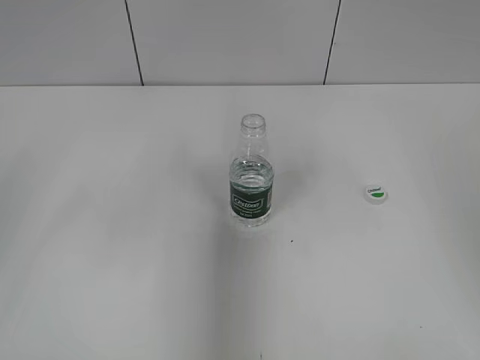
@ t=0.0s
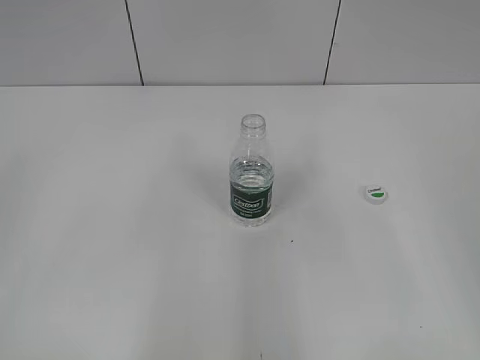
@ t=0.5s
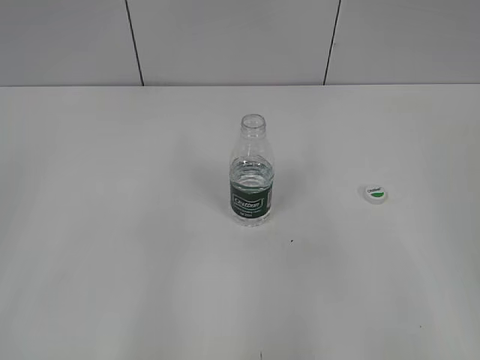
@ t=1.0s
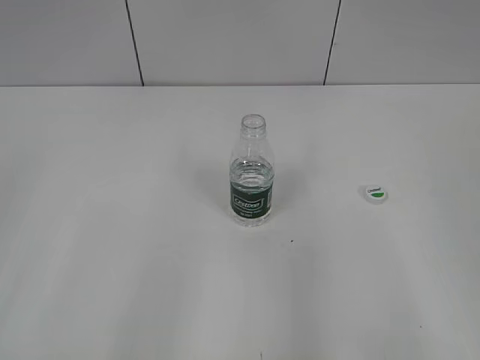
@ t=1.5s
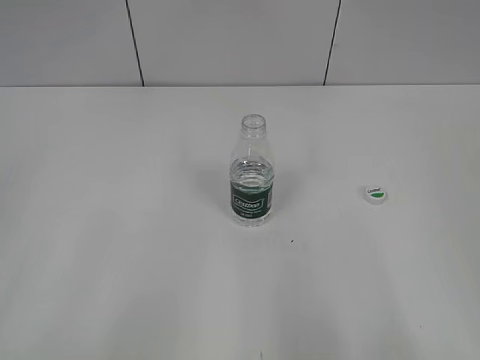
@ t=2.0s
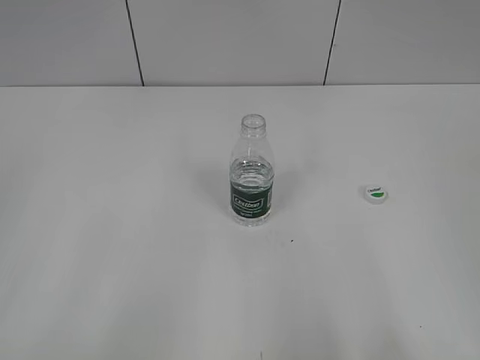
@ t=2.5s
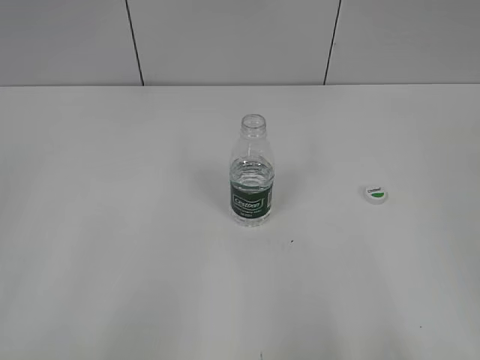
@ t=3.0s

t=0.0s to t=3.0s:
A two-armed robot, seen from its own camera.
t=0.0s to t=1.5s: Both grippers travel together backward, about 15 cm.

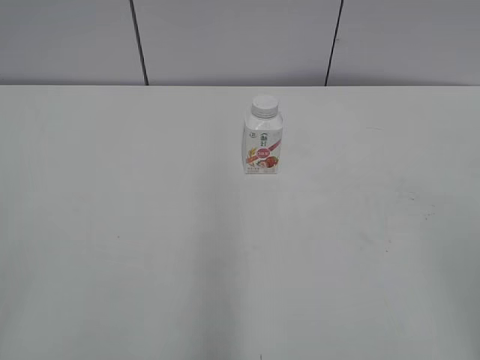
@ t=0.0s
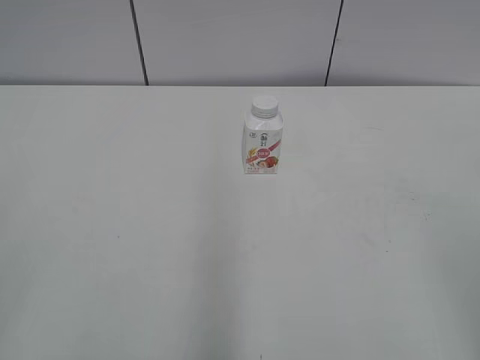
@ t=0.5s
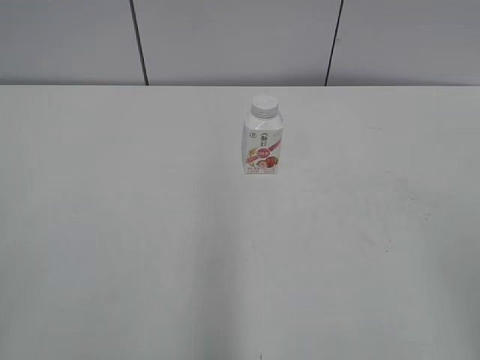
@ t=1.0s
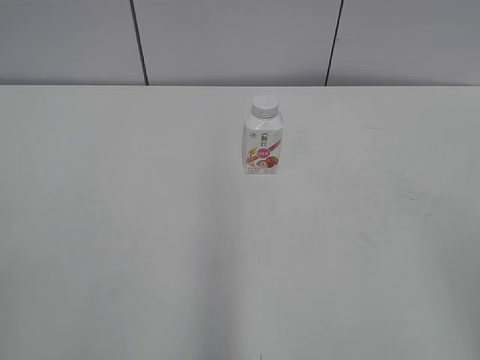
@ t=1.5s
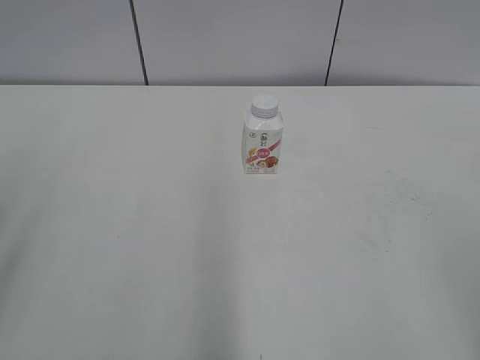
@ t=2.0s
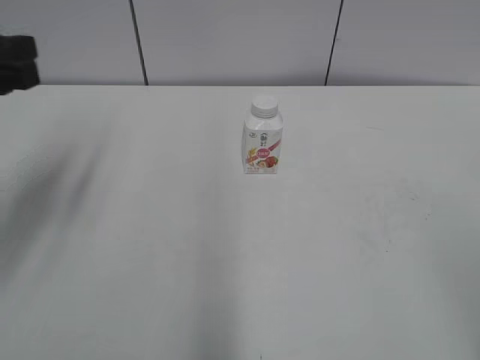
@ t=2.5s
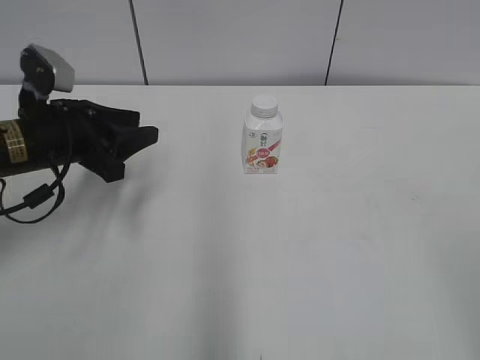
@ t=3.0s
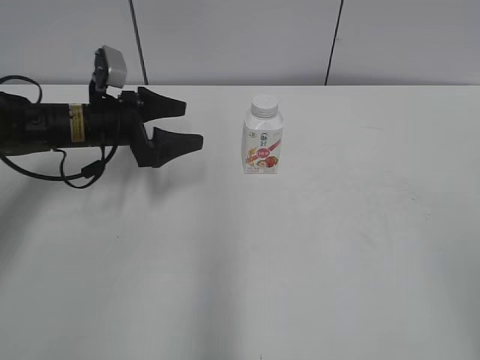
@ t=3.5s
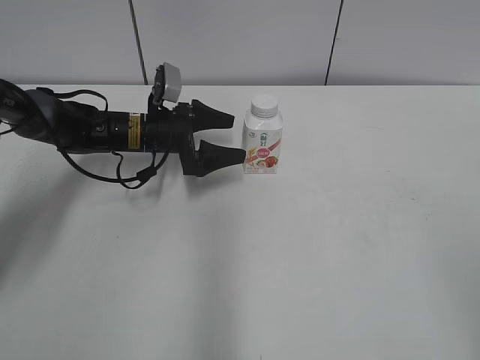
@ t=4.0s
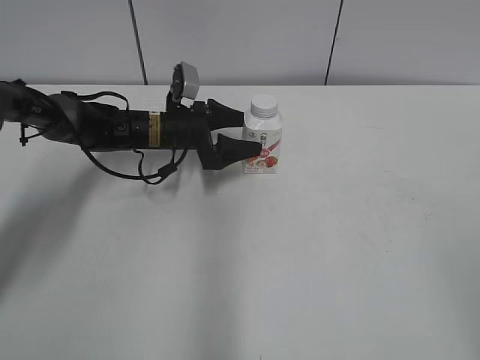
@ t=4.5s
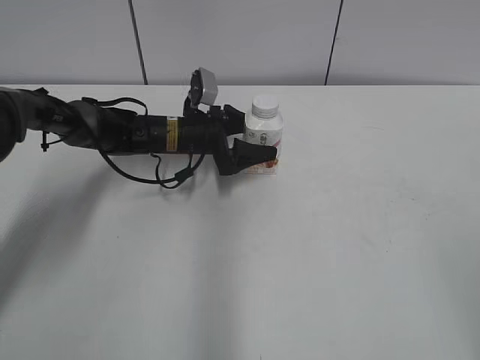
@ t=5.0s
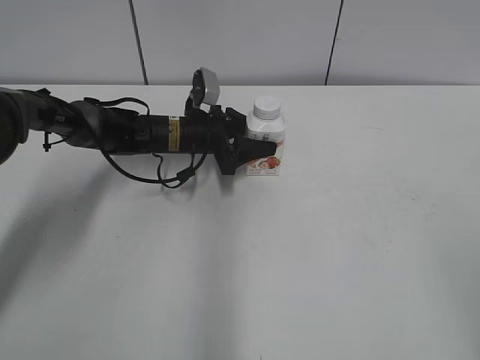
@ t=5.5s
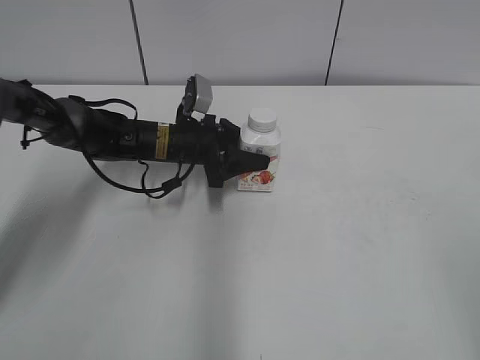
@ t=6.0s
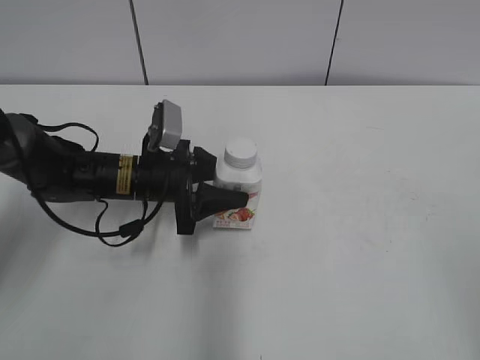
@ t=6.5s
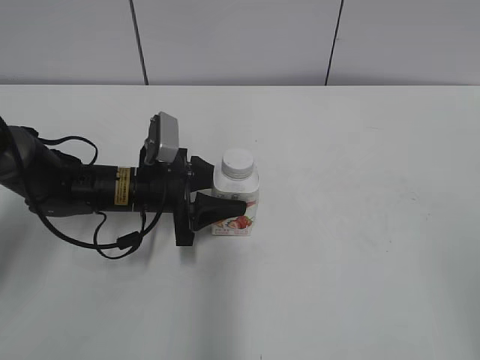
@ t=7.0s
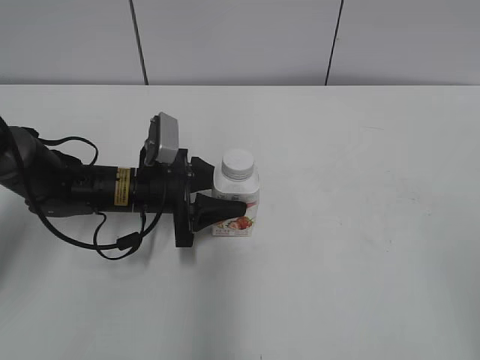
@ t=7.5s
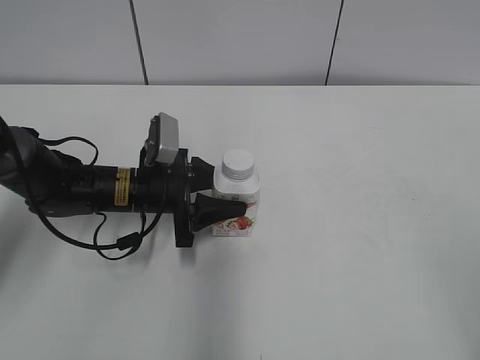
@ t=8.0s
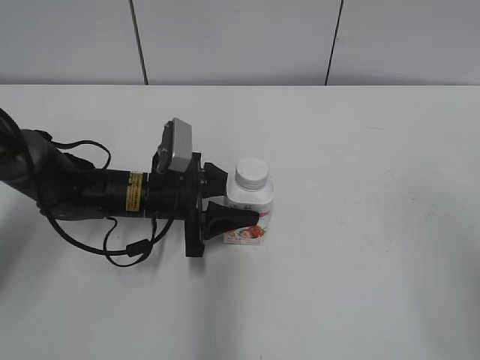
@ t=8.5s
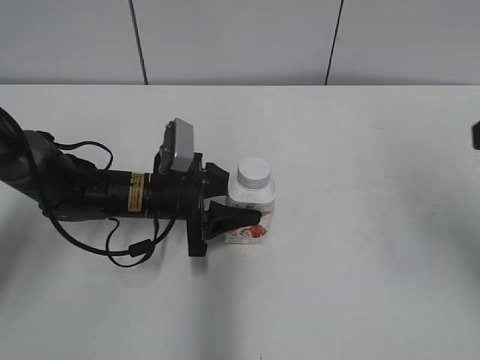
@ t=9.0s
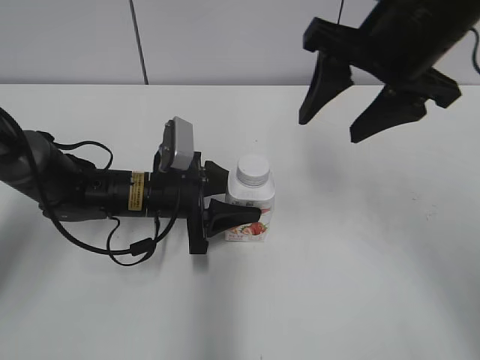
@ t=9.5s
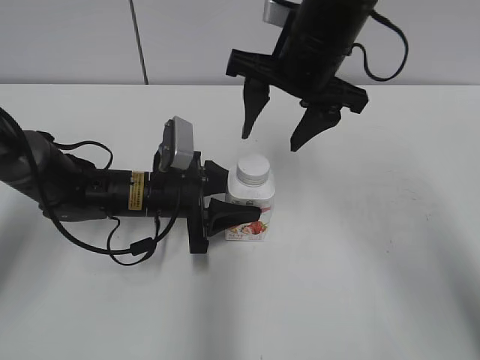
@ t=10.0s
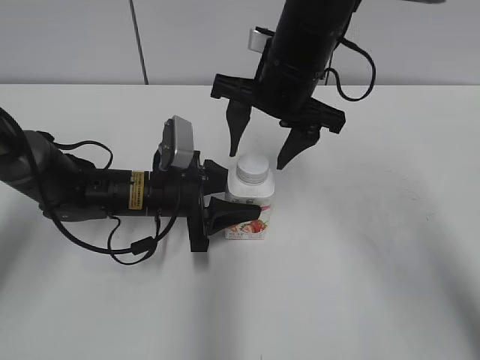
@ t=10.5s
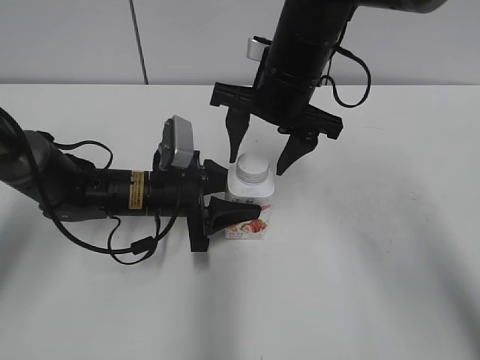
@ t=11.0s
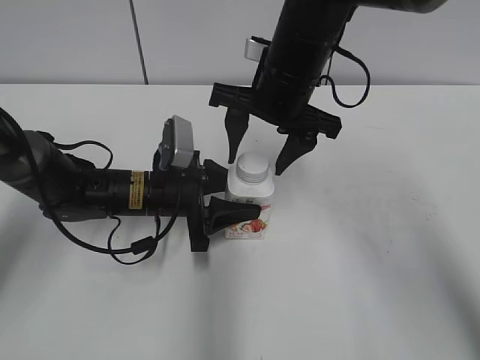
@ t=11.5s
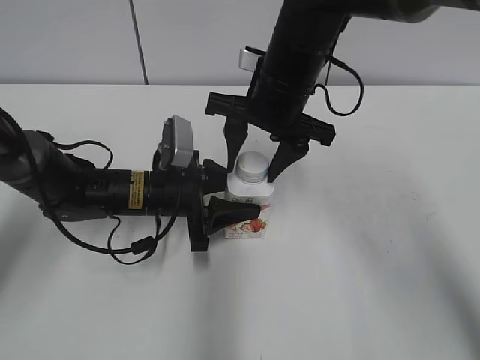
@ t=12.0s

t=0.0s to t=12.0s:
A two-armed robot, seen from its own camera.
Step, t=0.0s to t=5.0s: Grab the Yili Changqing with the left hand.
Step, t=5.5s to t=7.5s: Move the Yili Changqing from top to bottom.
t=2.0s to t=4.0s: The left gripper shifts roughly 50 cm forward, downward and to the right, and opens its fingers.
t=4.0s to t=6.0s: The left gripper closes.
t=6.0s to t=8.0s: The left gripper heads backward, covering roughly 10 cm.
t=8.0s to t=10.0s: The right gripper shifts roughly 40 cm forward and to the left.
t=10.0s to t=12.0s: The right gripper is displaced downward by about 5 cm, and closes up.

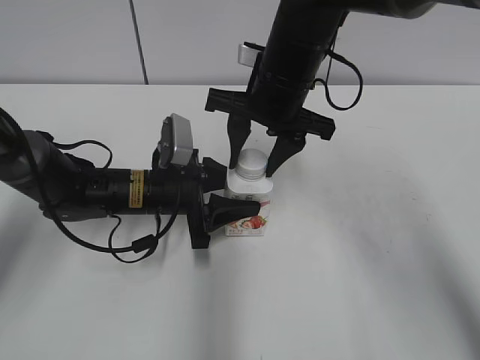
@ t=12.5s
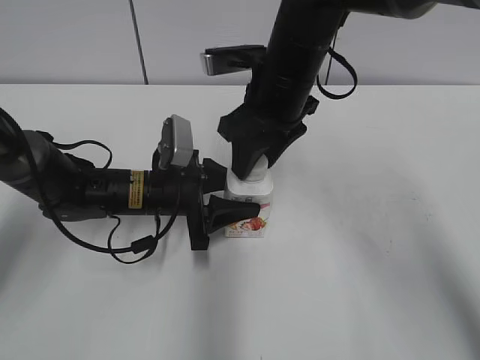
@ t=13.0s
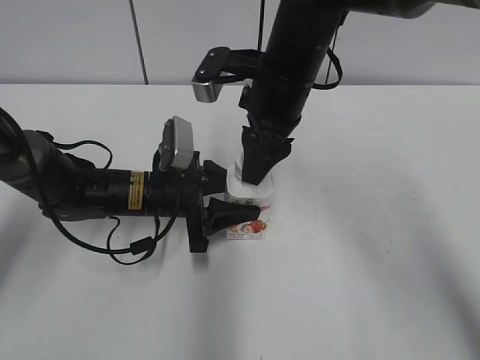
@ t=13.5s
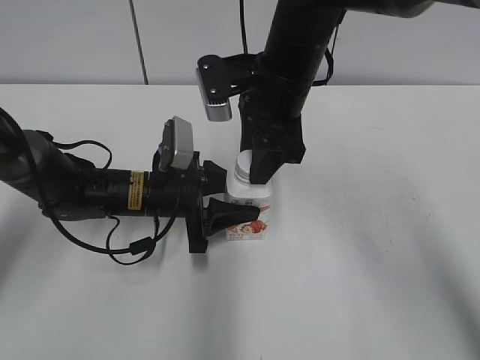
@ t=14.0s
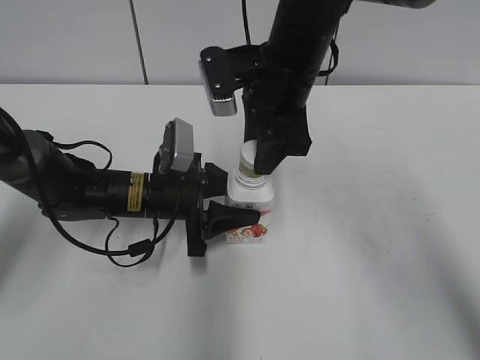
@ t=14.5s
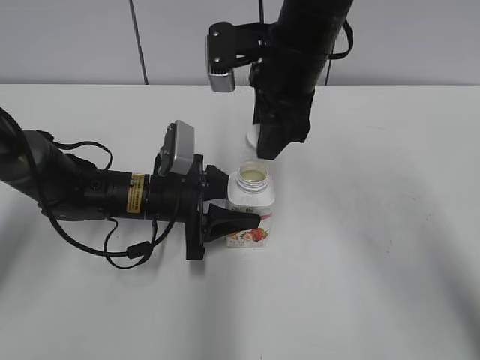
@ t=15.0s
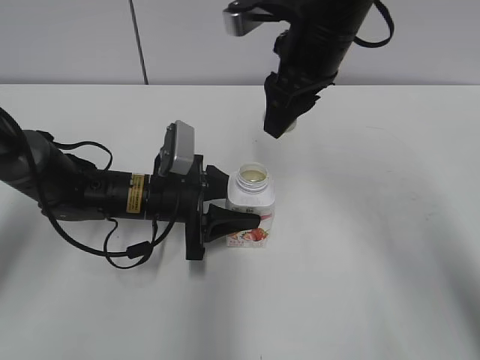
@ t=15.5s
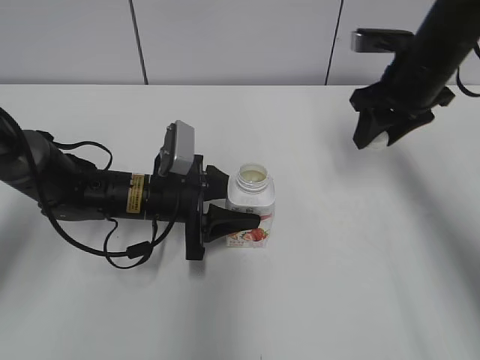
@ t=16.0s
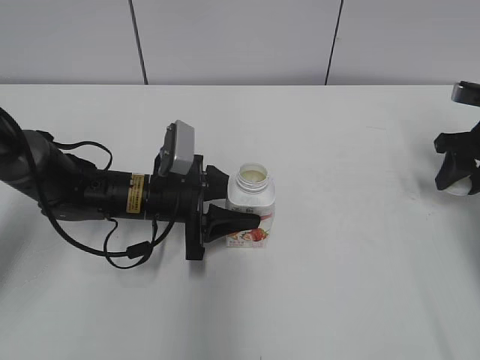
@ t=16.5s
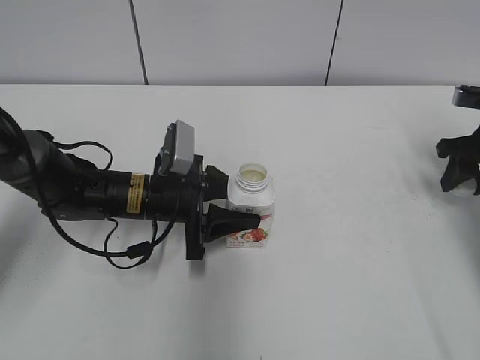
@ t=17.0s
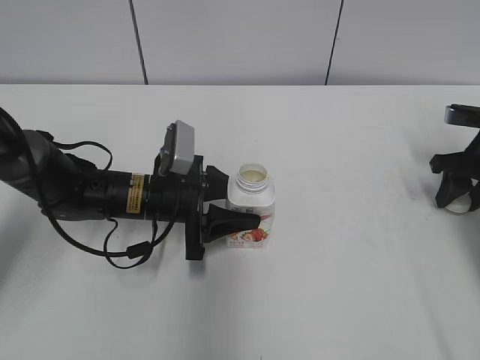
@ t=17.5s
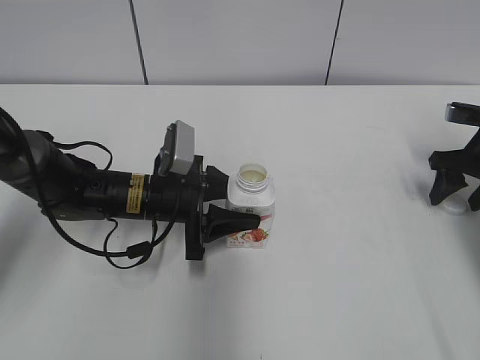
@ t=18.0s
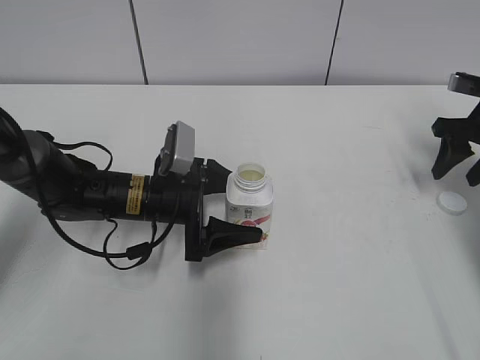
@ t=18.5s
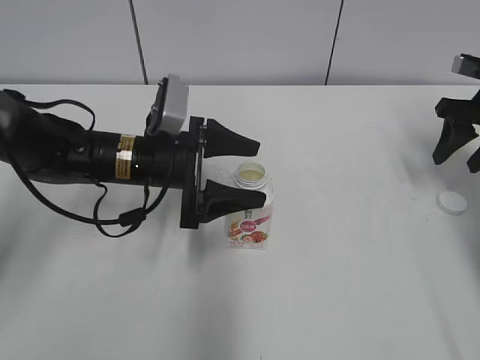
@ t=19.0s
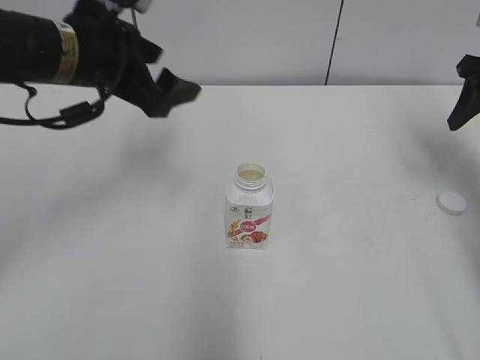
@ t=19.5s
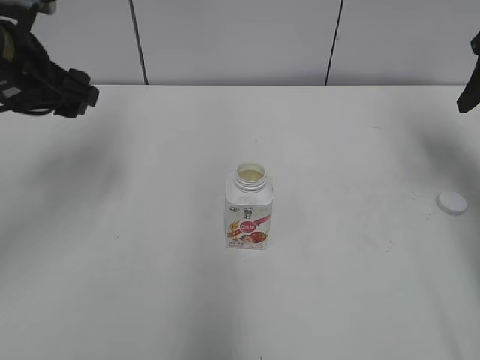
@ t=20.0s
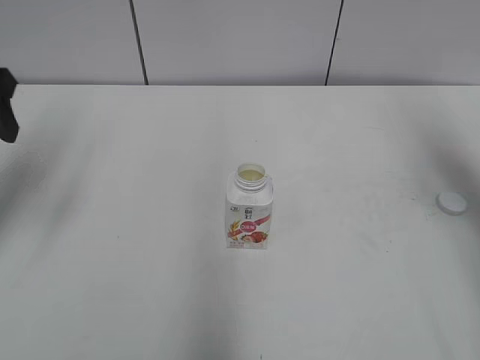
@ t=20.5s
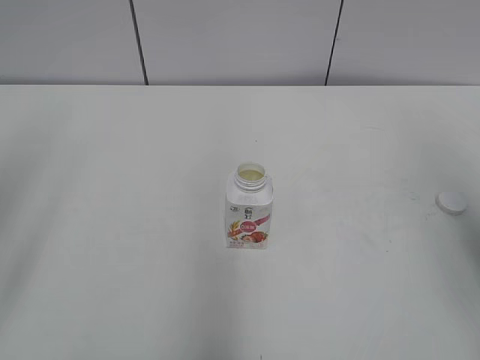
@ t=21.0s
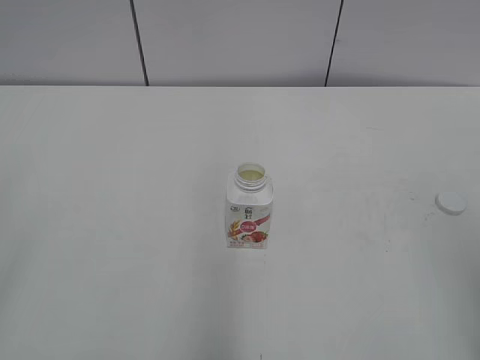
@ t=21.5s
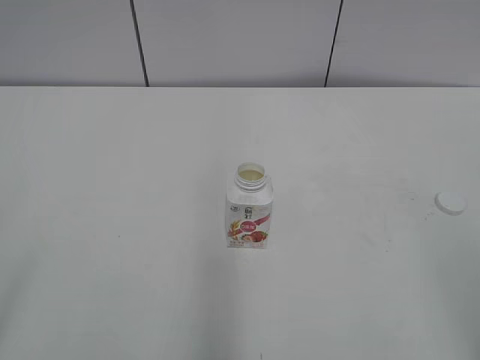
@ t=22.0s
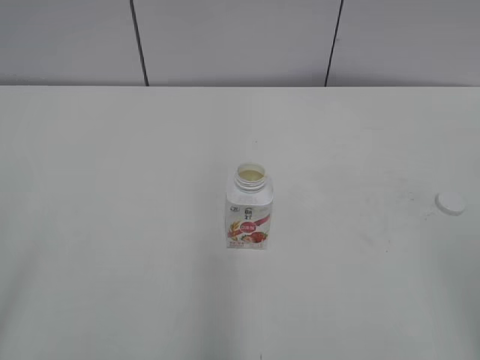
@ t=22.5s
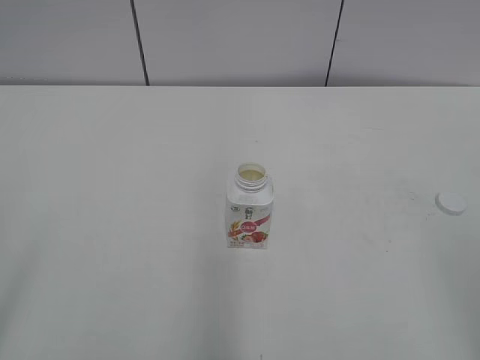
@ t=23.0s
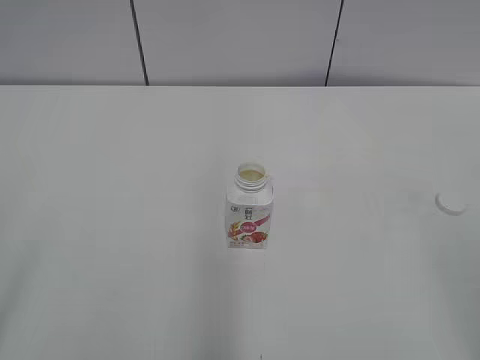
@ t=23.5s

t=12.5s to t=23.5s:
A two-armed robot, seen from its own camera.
Step, t=14.5s to t=18.0s: Place the bottle cap on the right.
t=14.5s to t=16.0s: The right gripper shifts roughly 15 cm to the right.
t=16.0s to t=18.0s: The right gripper travels to the right and downward by approximately 20 cm, and opens up.
t=18.0s to t=20.0s: The left gripper moves upward and to the left, about 25 cm, and opens up, while the right gripper travels upward by roughly 15 cm, and closes its fingers.
t=20.0s to t=21.5s: The two grippers go approximately 30 cm backward.
